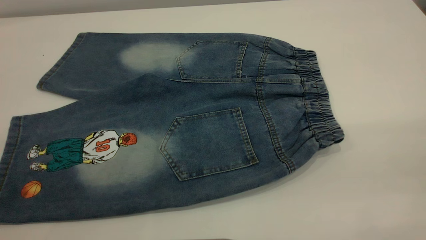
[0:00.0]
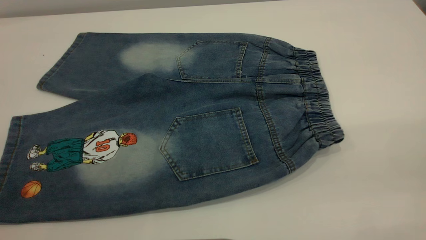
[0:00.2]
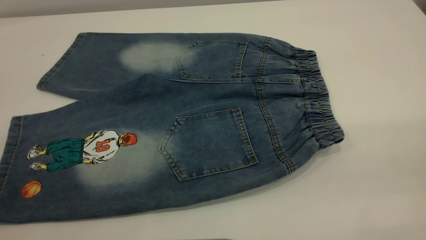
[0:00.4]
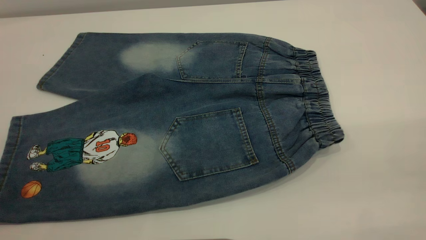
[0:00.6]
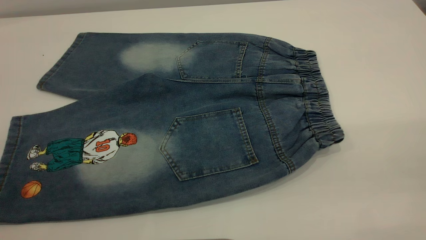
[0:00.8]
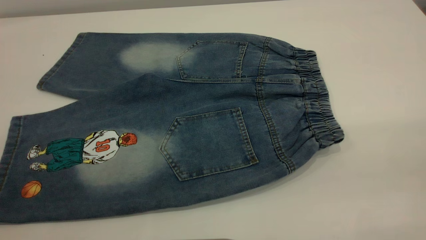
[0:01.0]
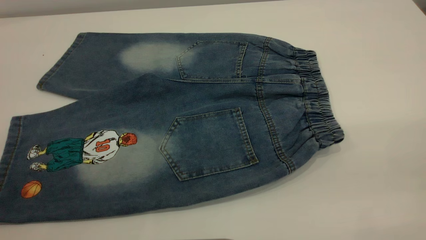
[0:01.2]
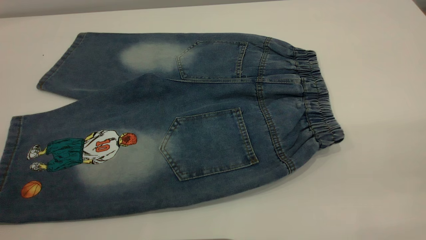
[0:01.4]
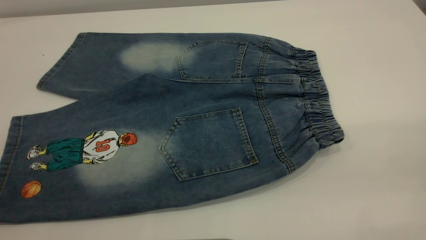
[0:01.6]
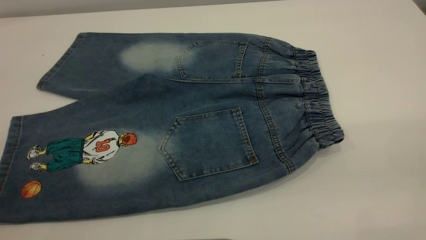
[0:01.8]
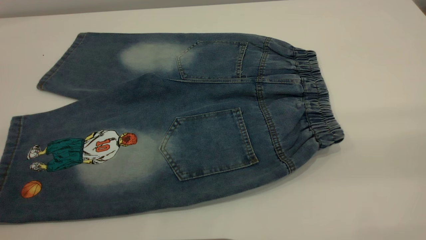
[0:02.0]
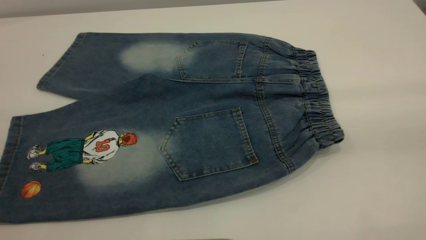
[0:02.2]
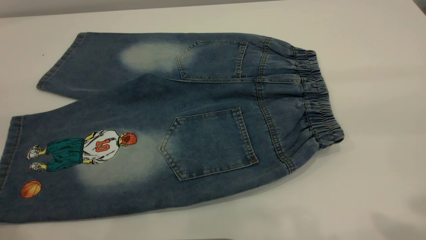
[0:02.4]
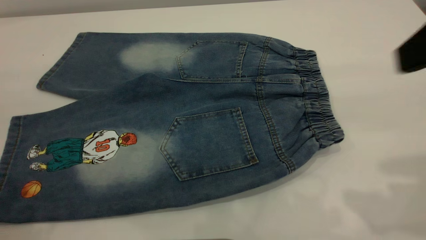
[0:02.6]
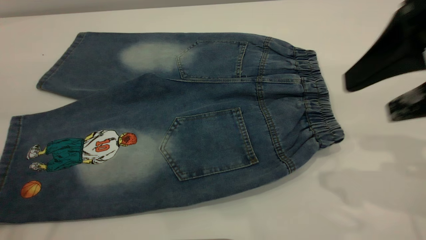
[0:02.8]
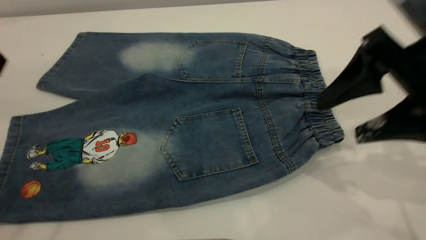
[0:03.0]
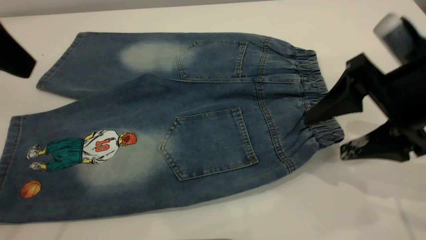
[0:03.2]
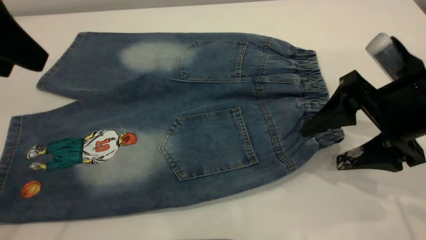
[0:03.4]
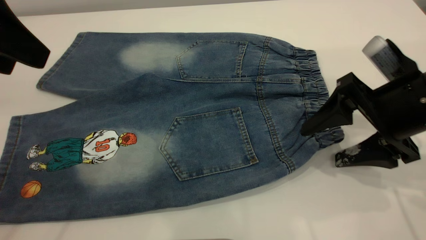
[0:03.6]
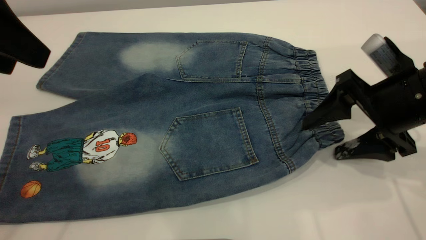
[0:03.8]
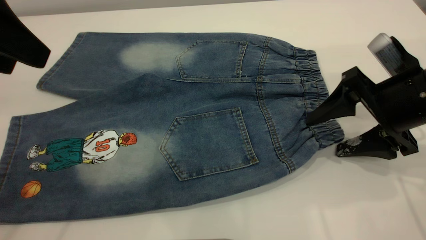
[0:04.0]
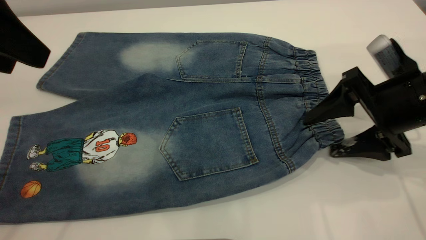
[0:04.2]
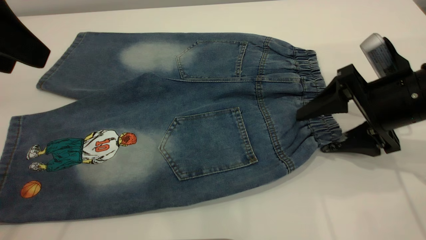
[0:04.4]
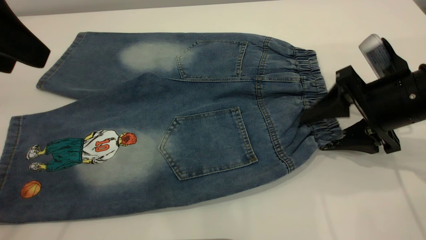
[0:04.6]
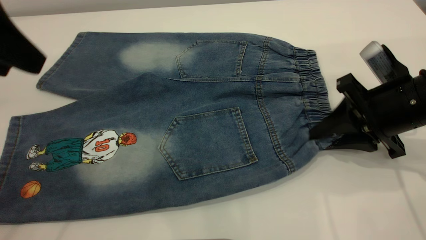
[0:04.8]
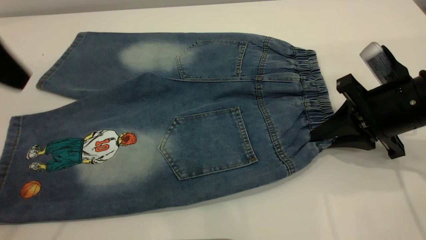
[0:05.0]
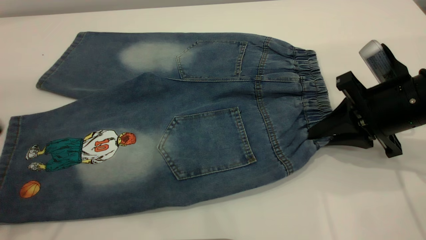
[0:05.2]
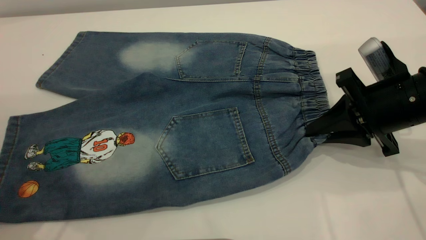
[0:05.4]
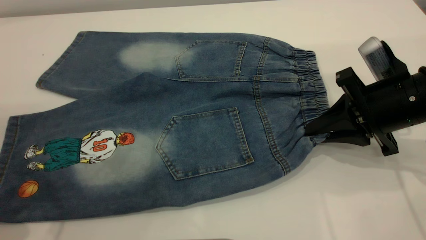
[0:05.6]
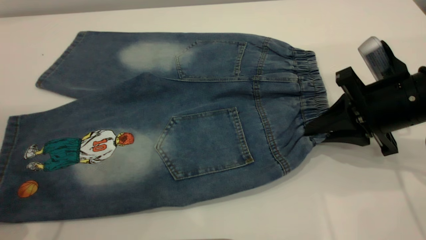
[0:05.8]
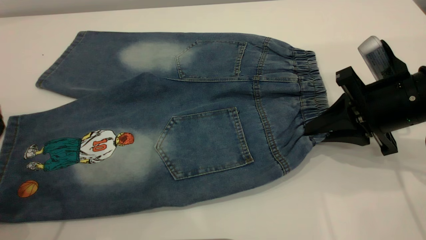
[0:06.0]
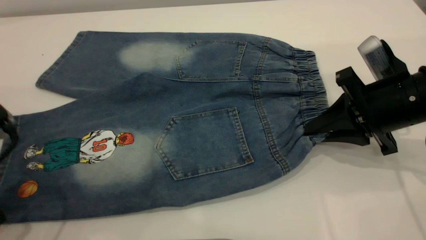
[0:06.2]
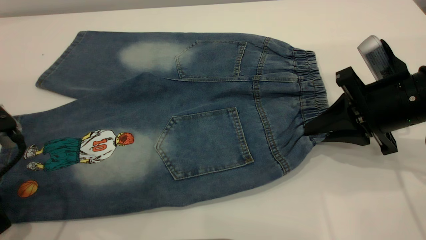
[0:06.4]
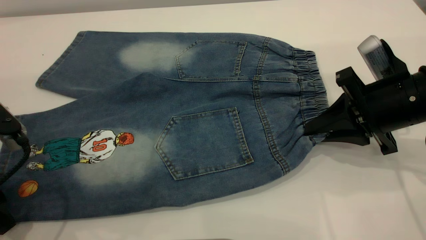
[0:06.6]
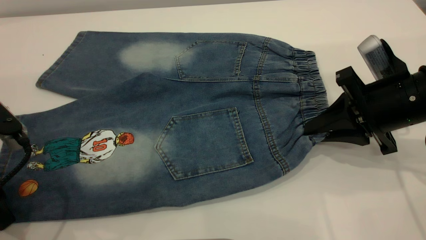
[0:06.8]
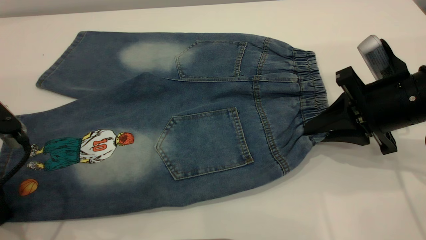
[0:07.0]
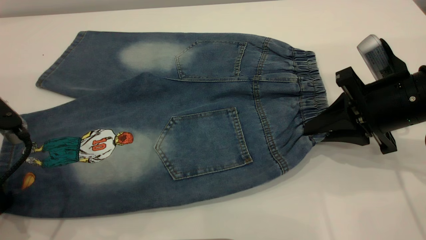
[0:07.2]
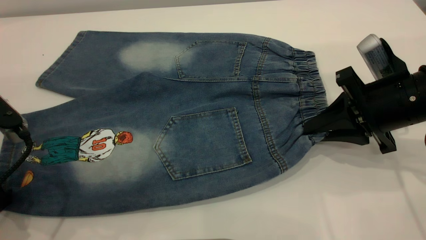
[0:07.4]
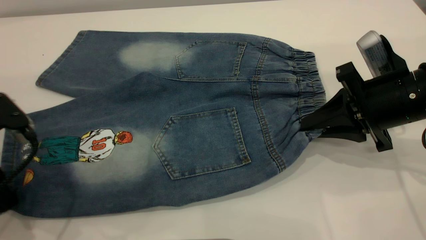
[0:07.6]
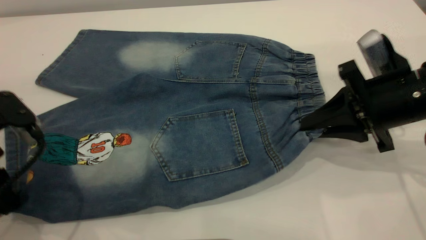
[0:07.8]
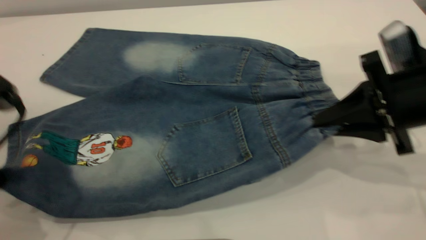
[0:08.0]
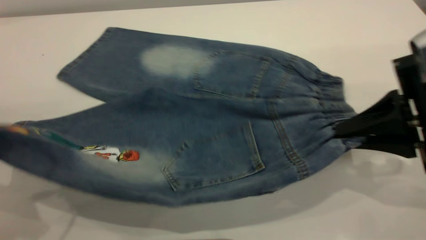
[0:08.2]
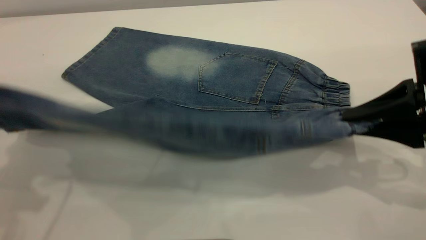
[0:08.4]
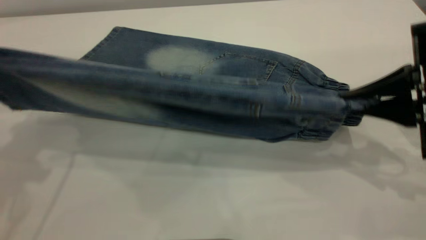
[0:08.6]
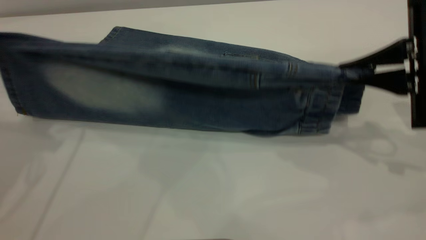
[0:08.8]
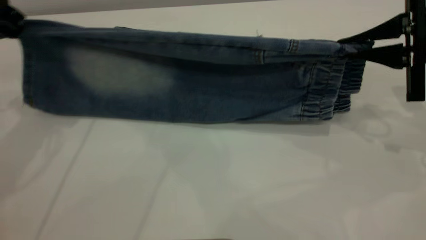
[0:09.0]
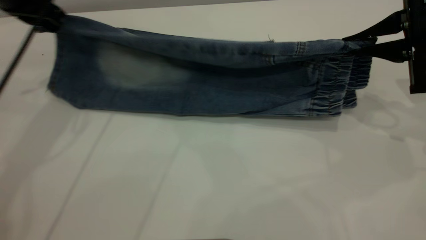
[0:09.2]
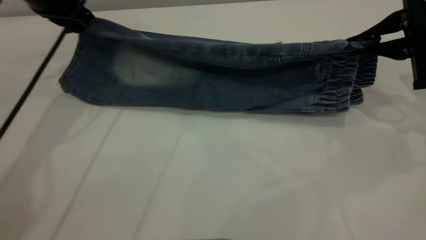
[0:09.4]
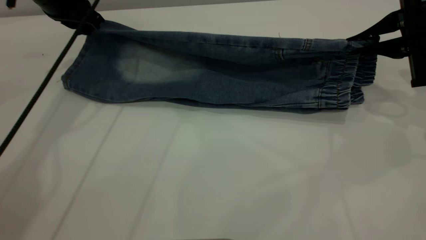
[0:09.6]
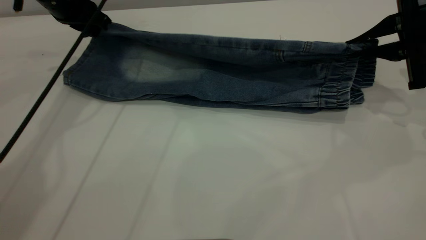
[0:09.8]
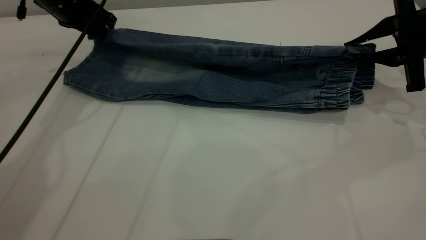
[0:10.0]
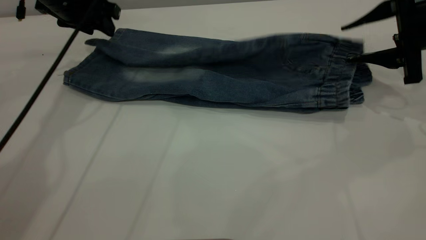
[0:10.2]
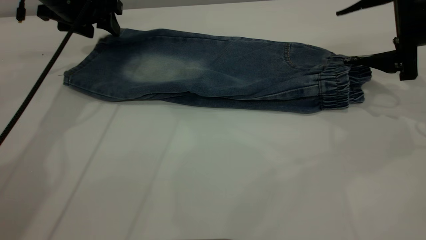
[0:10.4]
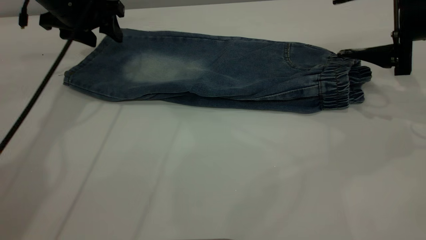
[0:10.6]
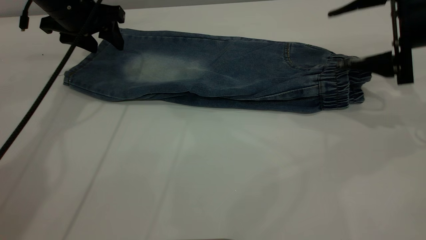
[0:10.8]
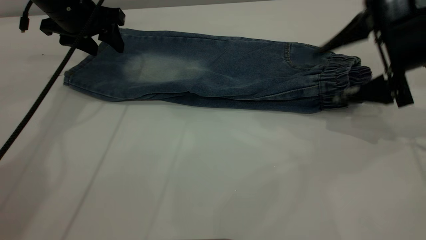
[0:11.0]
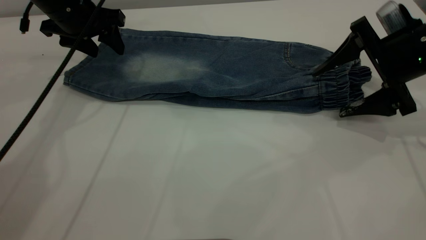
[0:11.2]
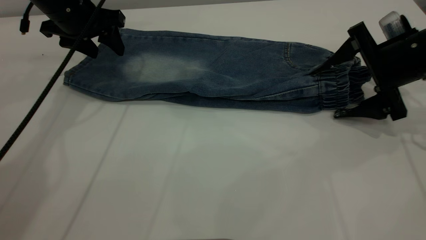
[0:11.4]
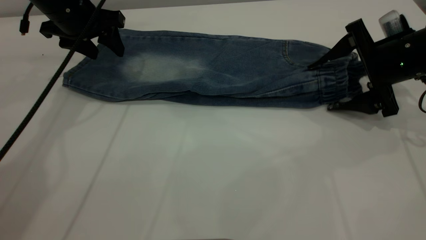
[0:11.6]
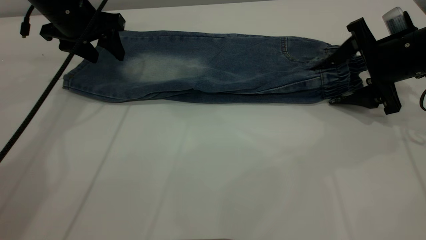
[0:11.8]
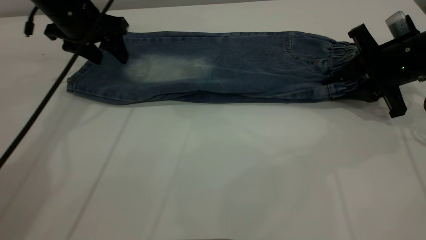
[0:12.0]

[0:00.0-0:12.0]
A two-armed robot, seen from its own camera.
Step, 0:00.0 to 0:10.4: Fold the bottom of the pants upward.
0:00.0 to 0:01.6: The two grippers keep their place.
0:01.6 to 0:03.0: The right gripper travels forward and downward by approximately 30 cm.
0:03.0 to 0:04.4: The right gripper shifts roughly 10 cm downward.
0:04.4 to 0:06.0: The right gripper closes; the left gripper is displaced downward and backward by approximately 15 cm.
0:06.0 to 0:07.6: The left gripper closes up.
0:07.6 to 0:09.0: The left gripper heads forward and upward, covering roughly 20 cm; the right gripper moves upward and to the right, approximately 10 cm, and moves about 5 cm backward and comes back.
0:09.0 to 0:10.4: The left gripper travels forward, downward and to the right by about 15 cm, and opens, while the right gripper is displaced forward by roughly 5 cm, and opens.
0:10.4 to 0:12.0: The right gripper goes approximately 5 cm downward, and closes up.

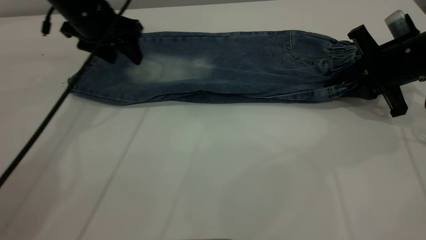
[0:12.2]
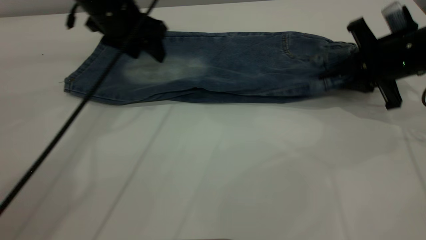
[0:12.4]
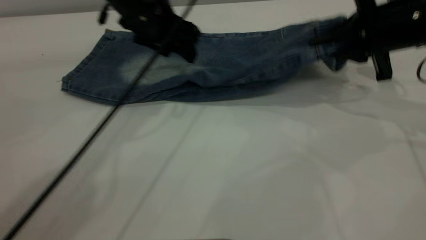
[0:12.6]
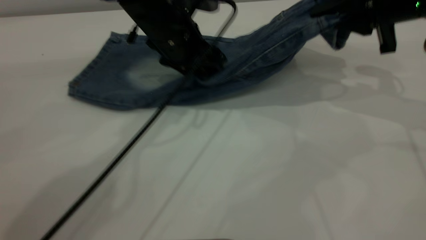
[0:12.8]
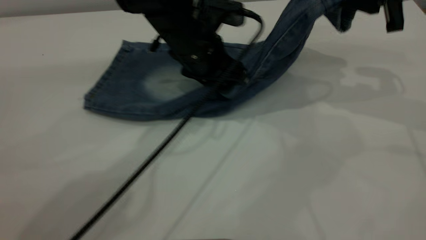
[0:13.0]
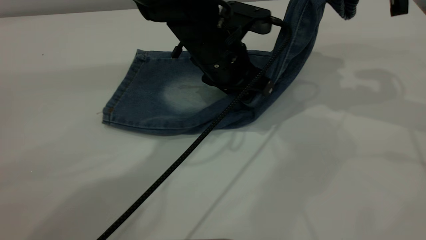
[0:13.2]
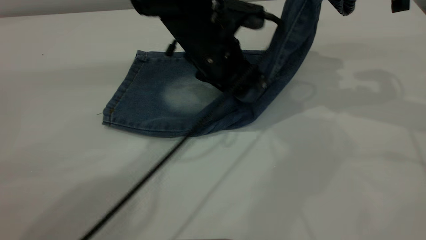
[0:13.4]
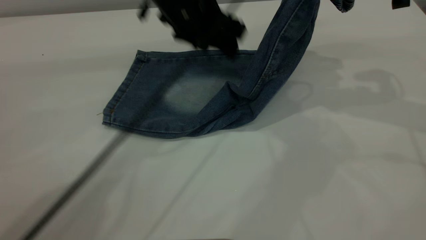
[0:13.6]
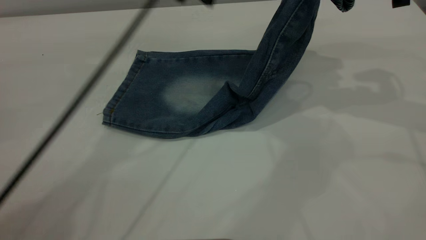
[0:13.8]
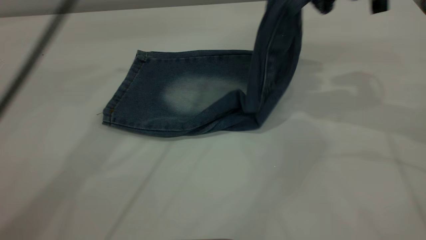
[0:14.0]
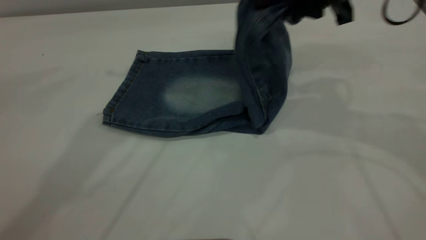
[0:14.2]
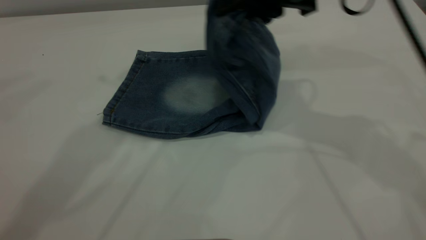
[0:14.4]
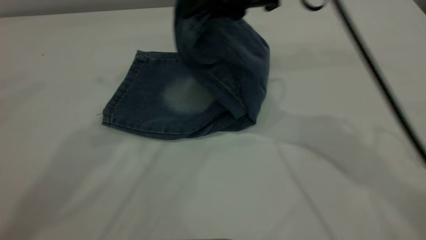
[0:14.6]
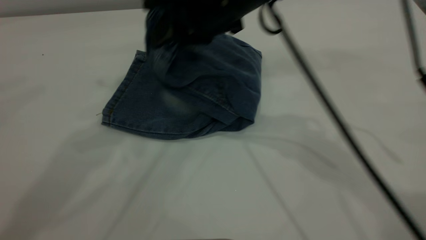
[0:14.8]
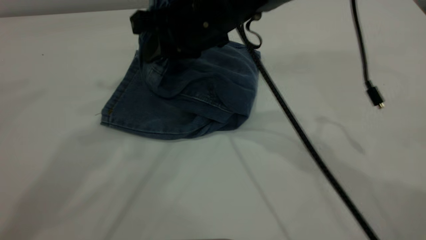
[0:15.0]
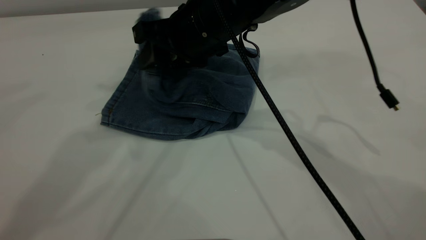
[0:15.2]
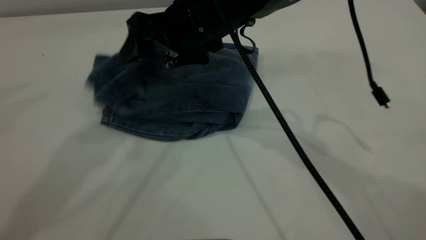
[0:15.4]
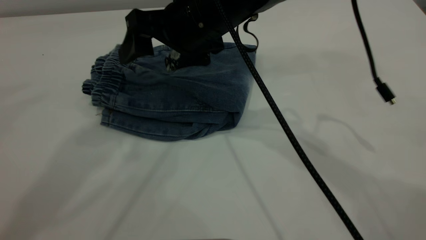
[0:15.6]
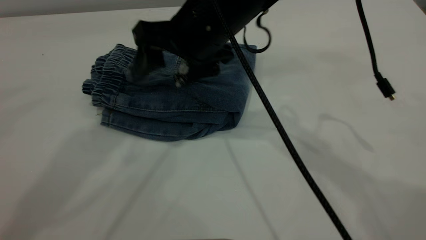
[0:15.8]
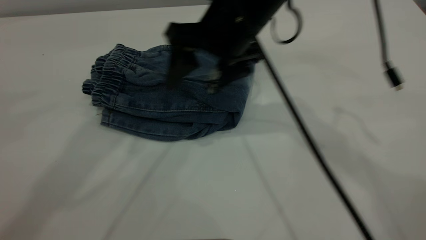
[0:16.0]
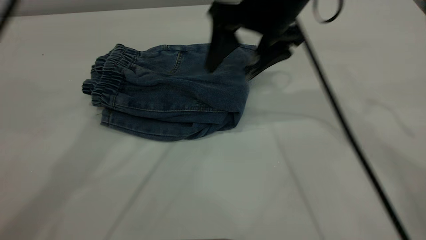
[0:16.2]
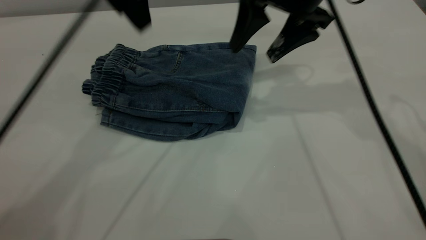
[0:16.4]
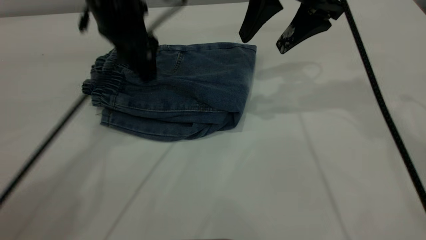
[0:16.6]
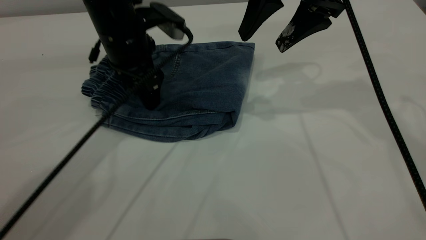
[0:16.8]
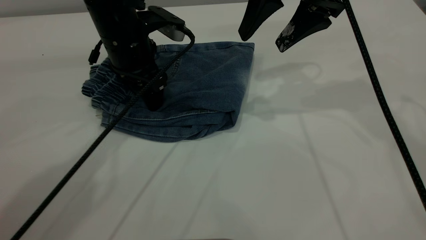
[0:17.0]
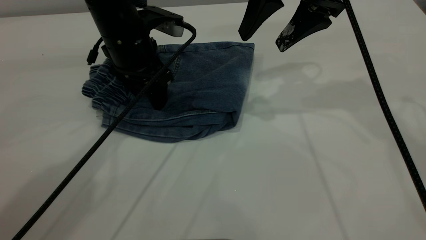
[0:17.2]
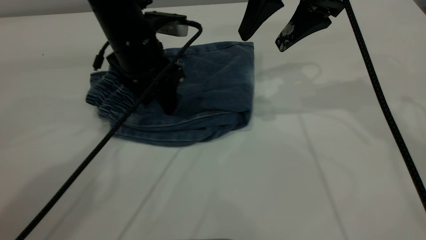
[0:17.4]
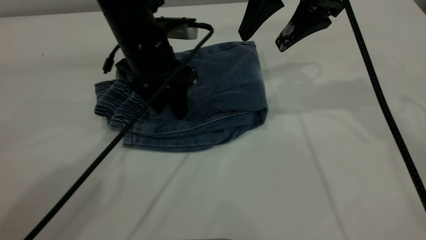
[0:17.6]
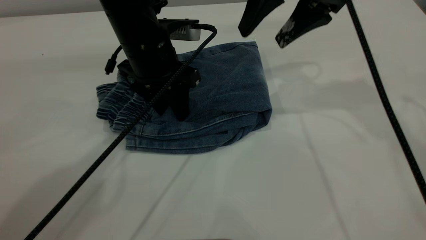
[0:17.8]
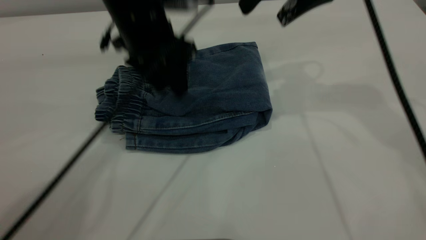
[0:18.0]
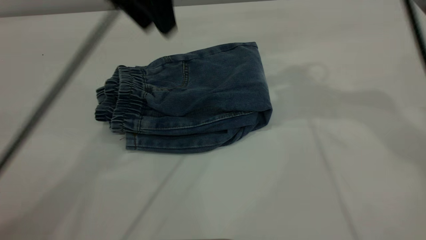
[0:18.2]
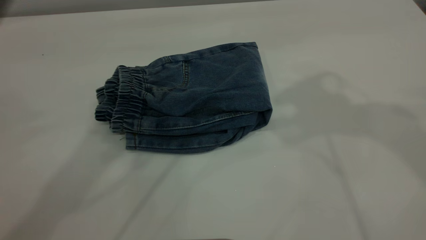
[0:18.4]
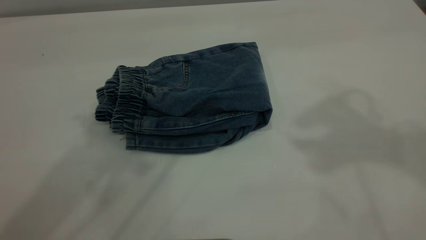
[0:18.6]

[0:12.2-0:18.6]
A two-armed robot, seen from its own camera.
Step, 0:12.2 to 0:16.2: Fold your pants from right to left.
0:12.2 to 0:13.8: The left gripper moves upward and to the right, about 15 cm. Meanwhile the right gripper heads upward, covering approximately 15 cm.
0:13.8 to 0:15.4: The right gripper goes some 25 cm to the left, and opens, while the left gripper moves upward, some 15 cm.
0:15.4 to 0:17.0: The left gripper is displaced downward by some 30 cm, while the right gripper travels to the right by roughly 15 cm.
0:17.0 to 0:18.6: Both grippers travel together upward and backward, roughly 30 cm.
